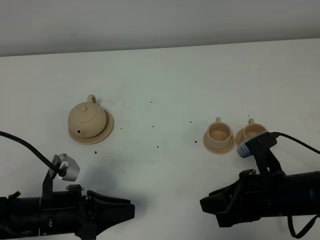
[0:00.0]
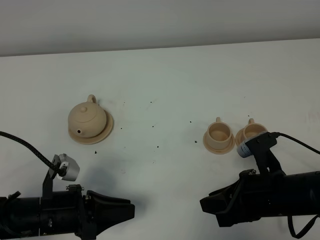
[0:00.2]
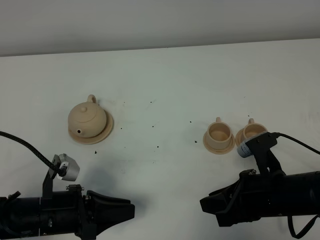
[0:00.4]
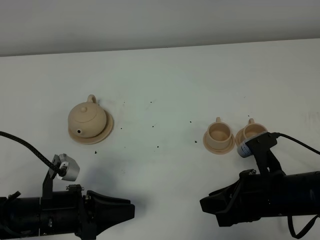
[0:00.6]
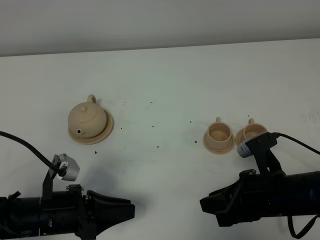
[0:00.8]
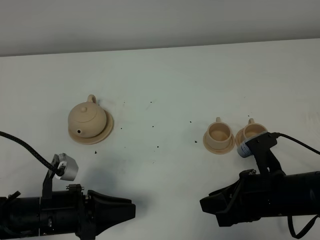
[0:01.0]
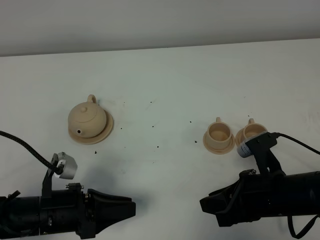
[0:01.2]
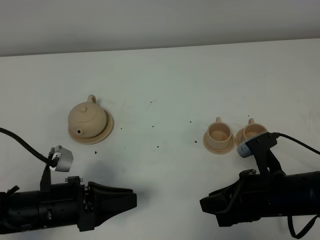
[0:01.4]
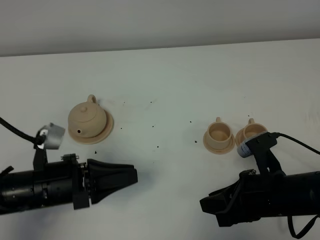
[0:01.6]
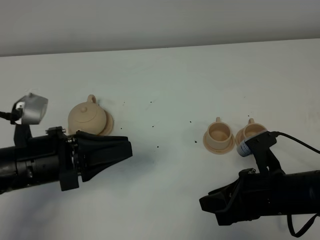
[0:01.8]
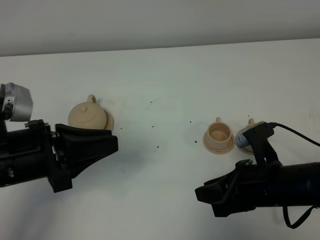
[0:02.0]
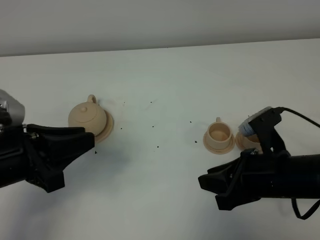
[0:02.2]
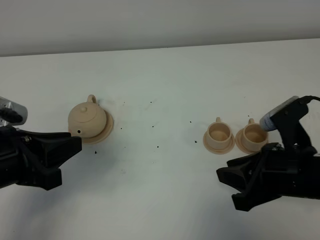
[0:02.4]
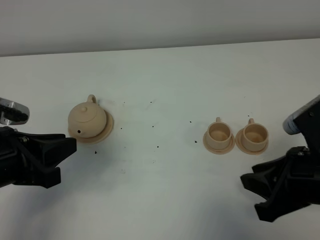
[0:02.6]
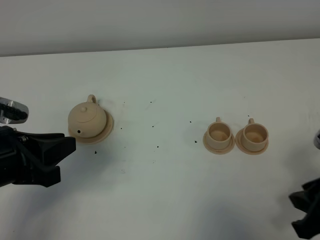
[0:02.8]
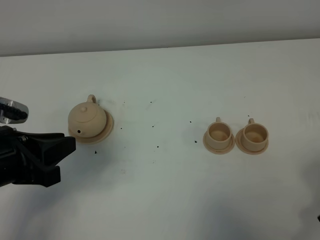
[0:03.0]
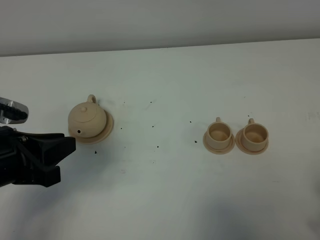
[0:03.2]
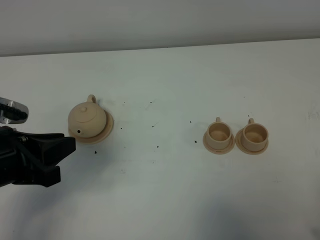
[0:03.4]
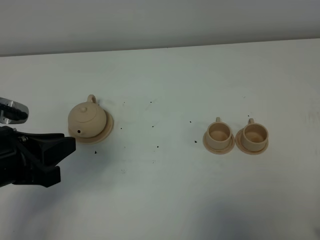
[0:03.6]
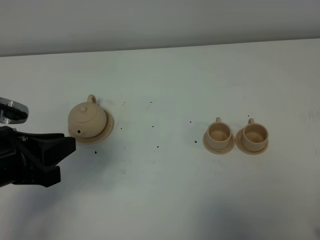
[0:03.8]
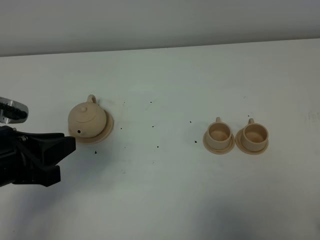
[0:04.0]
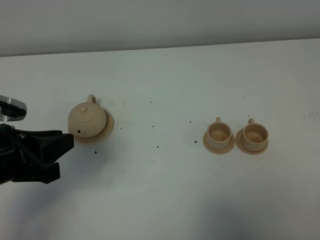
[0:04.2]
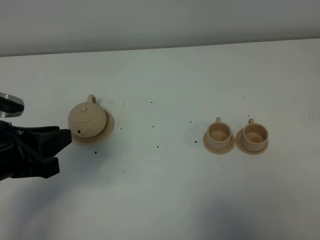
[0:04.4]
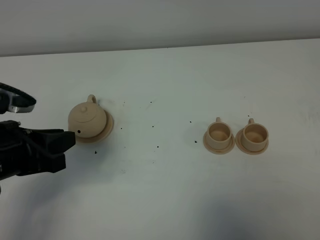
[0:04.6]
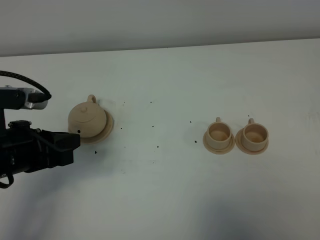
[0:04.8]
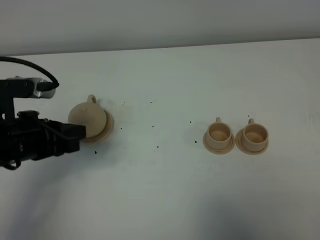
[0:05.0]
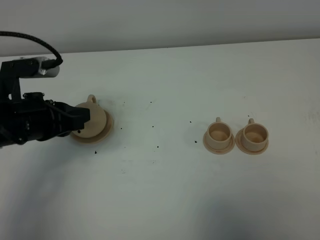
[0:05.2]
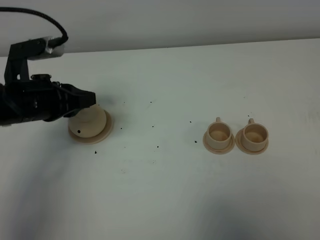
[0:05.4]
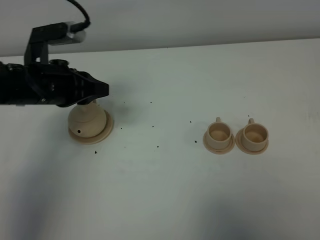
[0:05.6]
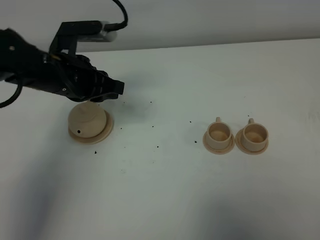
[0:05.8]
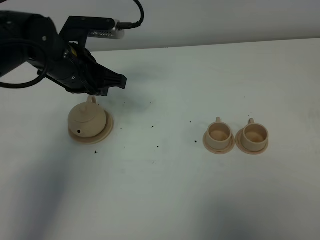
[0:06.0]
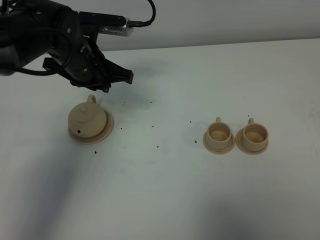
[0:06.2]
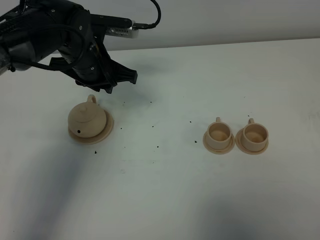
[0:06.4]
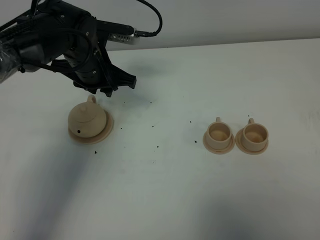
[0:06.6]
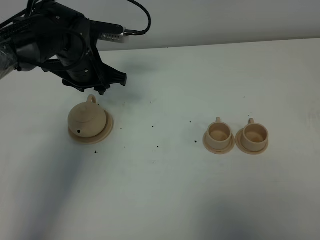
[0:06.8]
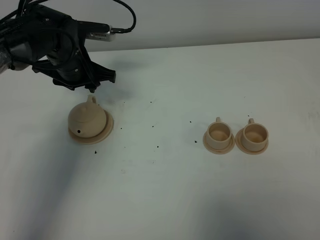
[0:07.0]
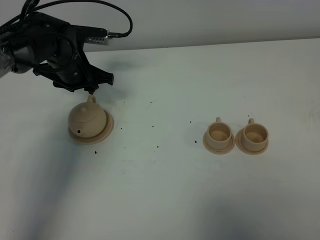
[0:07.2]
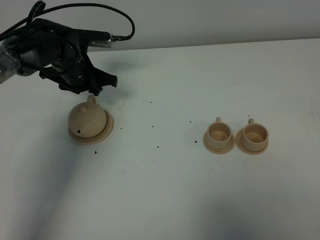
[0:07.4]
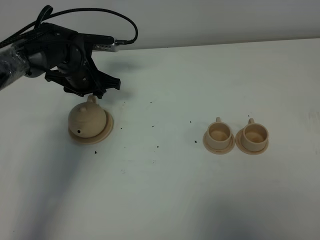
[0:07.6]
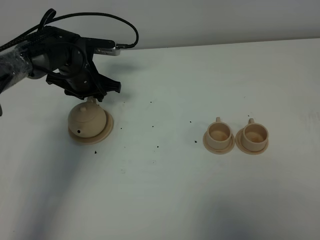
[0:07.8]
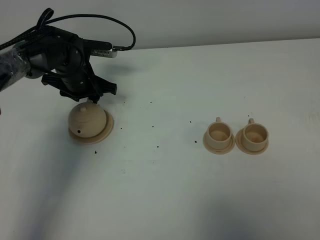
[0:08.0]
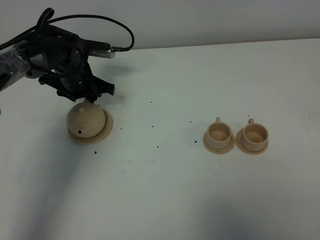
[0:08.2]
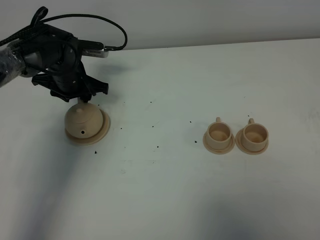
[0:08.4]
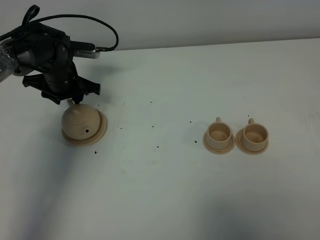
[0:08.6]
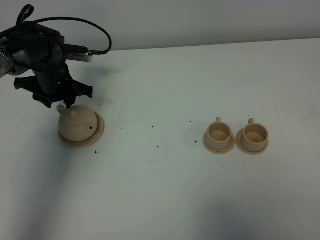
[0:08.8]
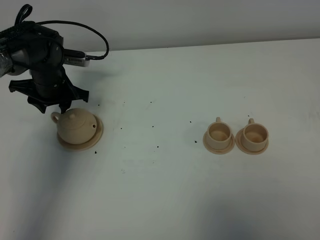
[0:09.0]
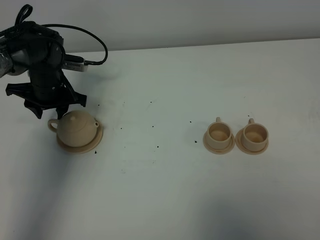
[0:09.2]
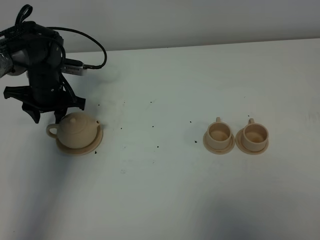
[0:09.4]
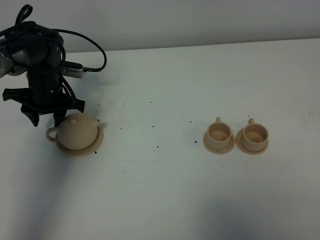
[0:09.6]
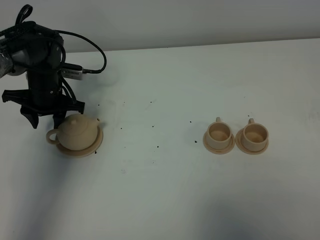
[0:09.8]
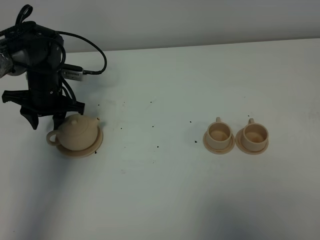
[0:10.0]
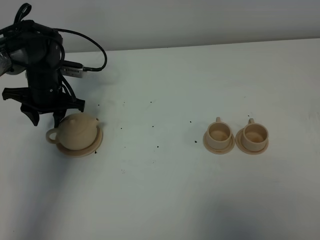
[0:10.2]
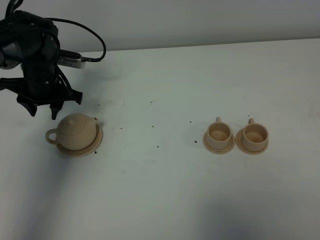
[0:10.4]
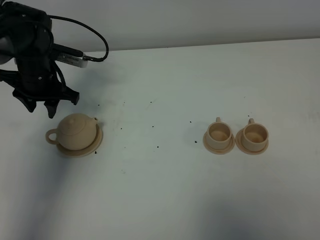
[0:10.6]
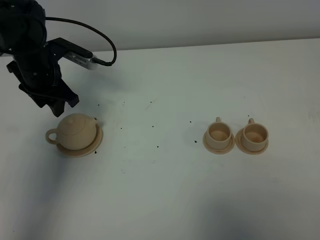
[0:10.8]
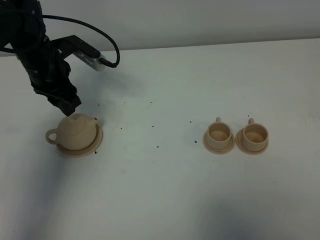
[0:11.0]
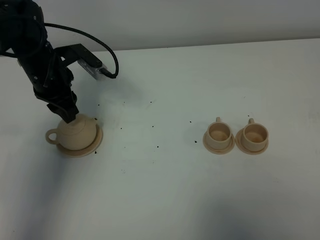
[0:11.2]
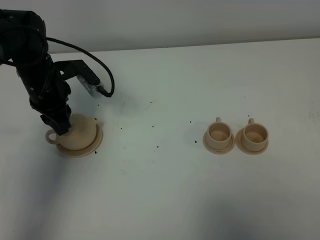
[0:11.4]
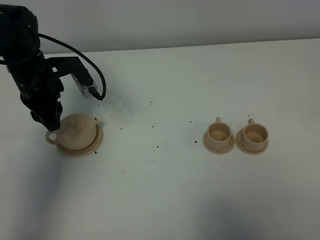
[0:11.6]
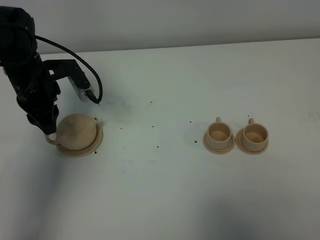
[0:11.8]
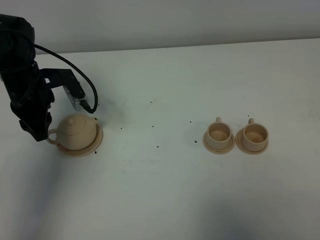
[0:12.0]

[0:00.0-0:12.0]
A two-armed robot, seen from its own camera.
Task of the whole recording: grasp the brown teapot and pour the tea into the two brown teacups one by one, put the brown teapot back in its original place.
0:00.0 to 0:01.6: The left gripper shifts by about 5 cm.
0:01.6 to 0:03.0: The right gripper travels upward, to the right and backward by approximately 15 cm. Meanwhile the left gripper shifts approximately 10 cm upward.
0:03.0 to 0:04.4: The right gripper travels backward and to the right by approximately 10 cm.
0:04.4 to 0:06.0: The left gripper is displaced forward and to the right by approximately 20 cm.
0:06.0 to 0:07.6: The left gripper heads downward and forward, covering approximately 15 cm, and opens its fingers.
0:07.6 to 0:09.0: The left gripper heads to the left, covering approximately 5 cm.
0:09.0 to 0:10.4: The grippers move only a little.
0:10.4 to 0:12.0: The left gripper moves backward, some 5 cm.

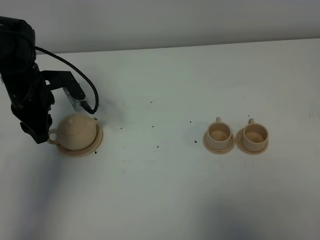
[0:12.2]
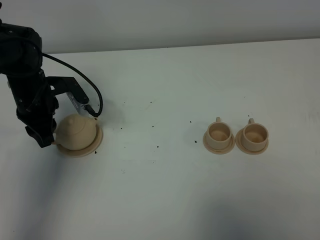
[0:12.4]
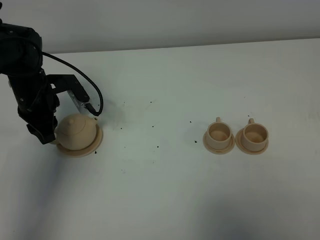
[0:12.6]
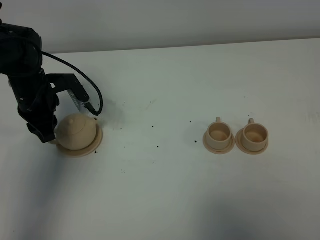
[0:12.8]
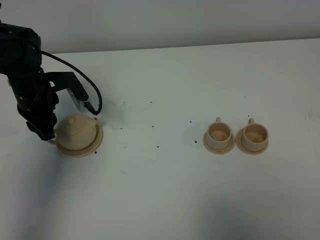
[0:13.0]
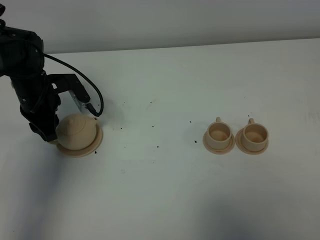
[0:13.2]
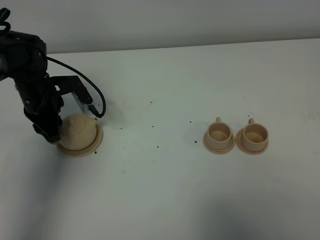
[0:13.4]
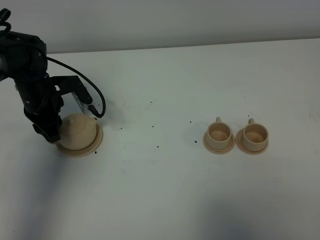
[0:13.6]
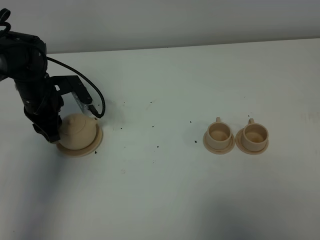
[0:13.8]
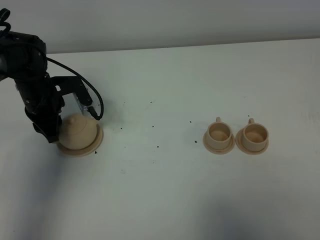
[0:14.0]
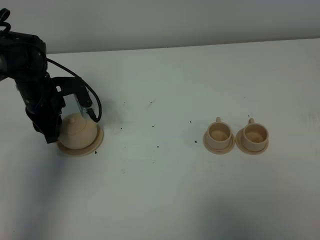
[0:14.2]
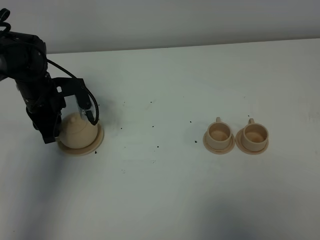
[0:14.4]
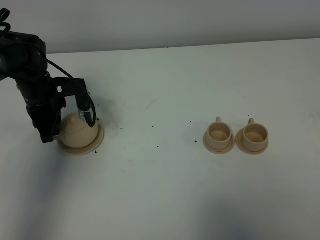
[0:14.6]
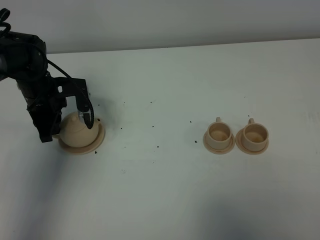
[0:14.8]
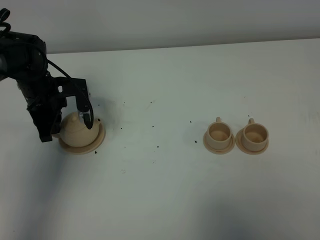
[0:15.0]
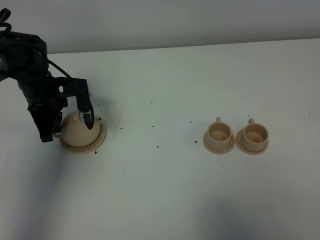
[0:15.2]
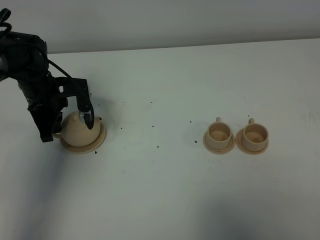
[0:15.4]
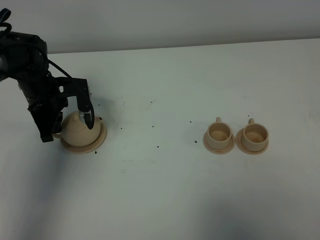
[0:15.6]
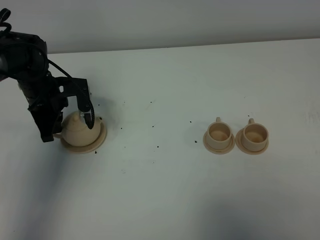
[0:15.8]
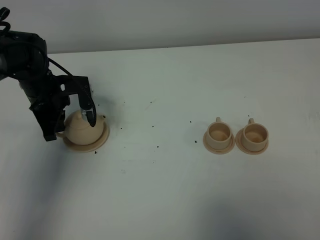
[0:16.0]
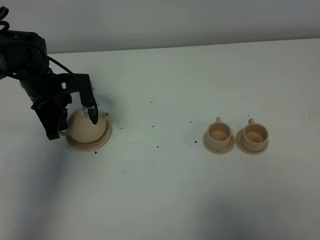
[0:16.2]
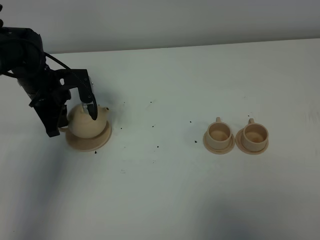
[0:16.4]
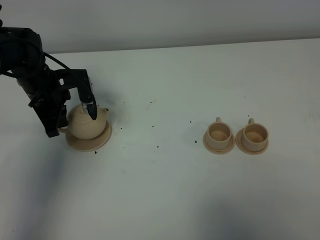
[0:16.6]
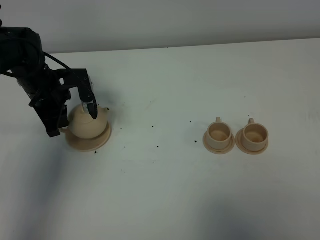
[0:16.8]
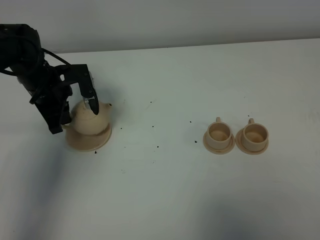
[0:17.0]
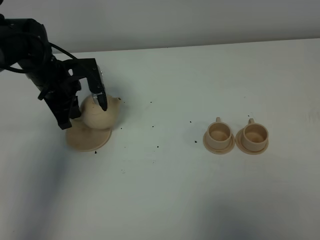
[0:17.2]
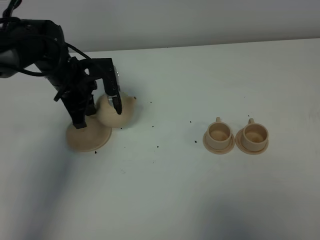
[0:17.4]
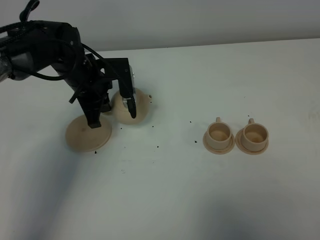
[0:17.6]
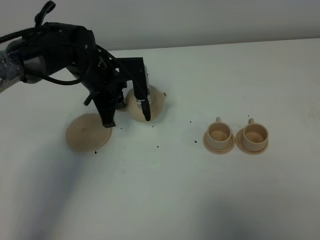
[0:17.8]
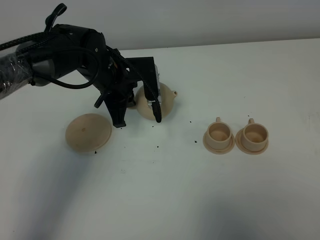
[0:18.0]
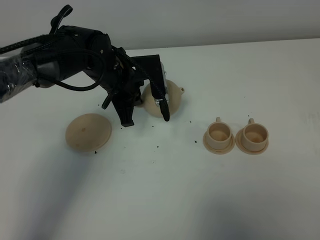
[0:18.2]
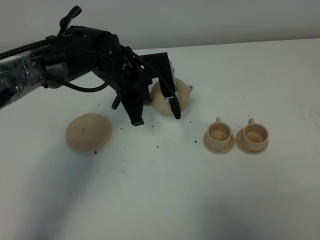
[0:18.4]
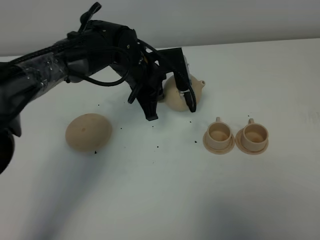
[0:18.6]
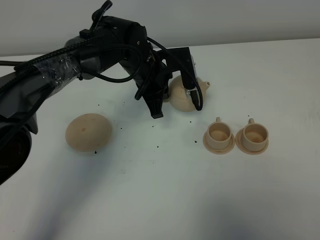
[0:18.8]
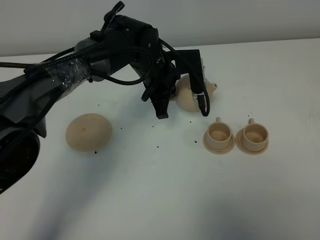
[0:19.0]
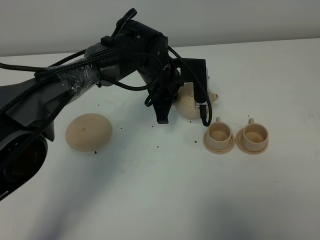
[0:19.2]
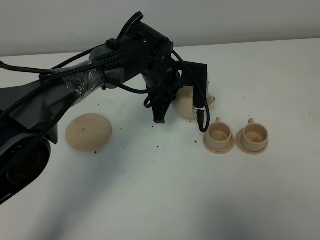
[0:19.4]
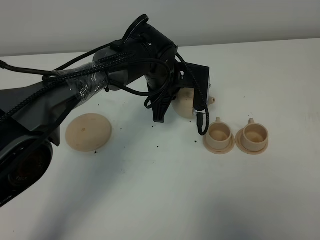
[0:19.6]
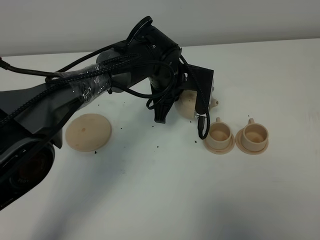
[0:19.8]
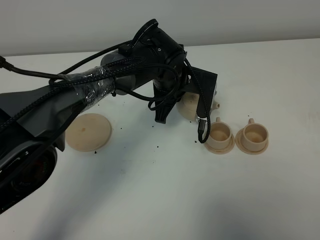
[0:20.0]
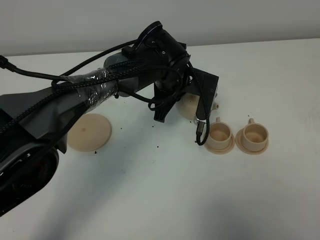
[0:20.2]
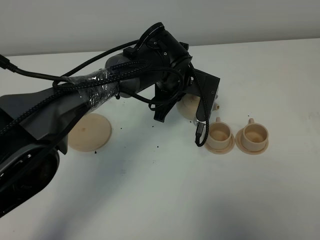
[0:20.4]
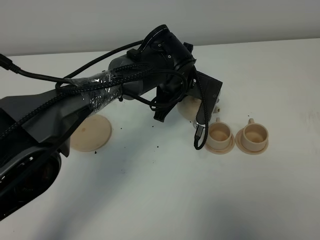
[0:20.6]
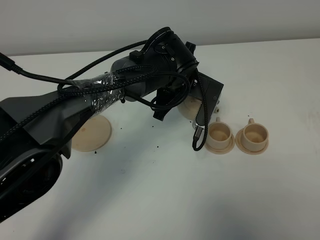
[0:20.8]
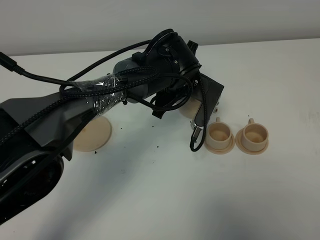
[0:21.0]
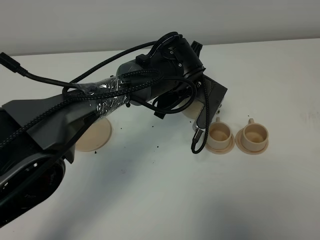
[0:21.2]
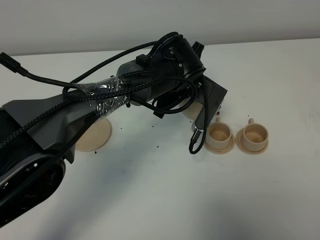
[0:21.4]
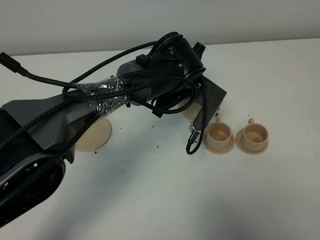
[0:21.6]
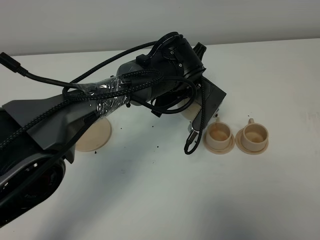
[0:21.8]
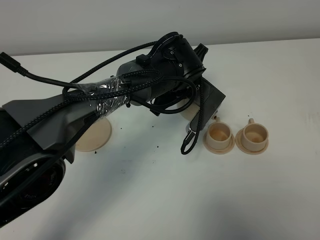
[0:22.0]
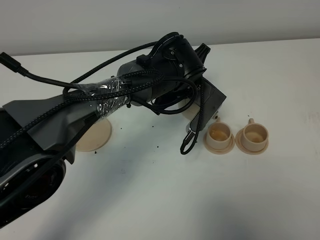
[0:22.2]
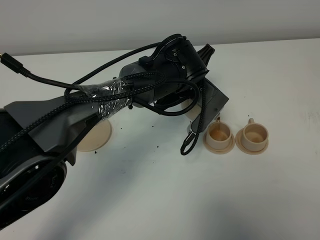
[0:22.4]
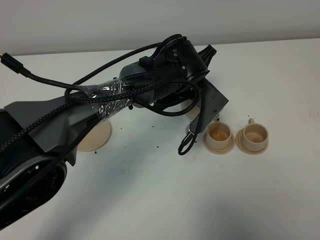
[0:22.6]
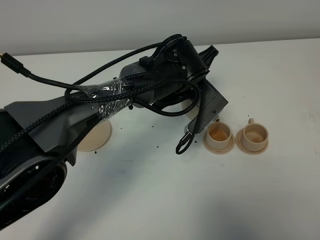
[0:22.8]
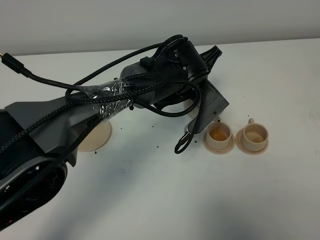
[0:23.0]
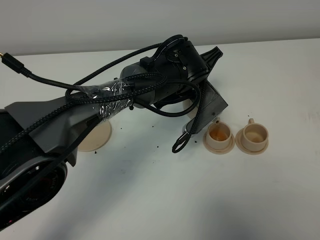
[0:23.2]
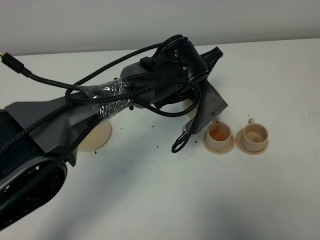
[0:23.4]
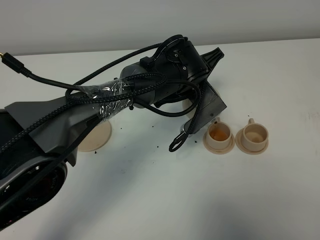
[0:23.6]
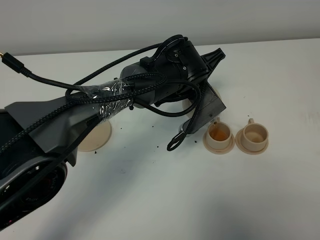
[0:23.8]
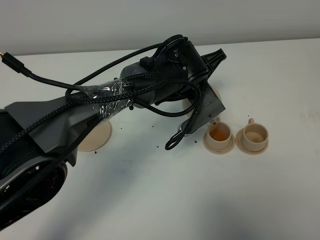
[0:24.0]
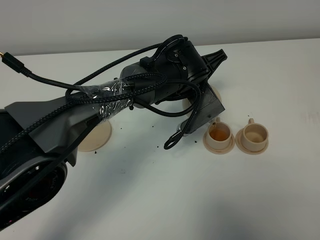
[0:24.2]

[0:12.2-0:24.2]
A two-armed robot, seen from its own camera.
Task of the whole recording: grasp the brown teapot and pour the tea into the two brown teacups one by one, put the brown teapot back in its original place.
Step, 0:12.2 to 0:16.0: Pick up the teapot with the left gripper.
0:12.2 to 0:13.8: The grippers stay close to where they were, moving slightly.
0:13.8 to 0:15.2: The left gripper closes its fingers.
0:15.2 to 0:16.6: The grippers stay close to where they were, moving slightly.
0:16.6 to 0:18.2: The left gripper goes about 15 cm to the right.
0:18.2 to 0:19.8: The left gripper goes some 10 cm to the right.
0:21.2 to 0:22.6: There are only small adjustments of the grippers.
0:22.6 to 0:24.2: The grippers stay close to where they were, moving slightly.
